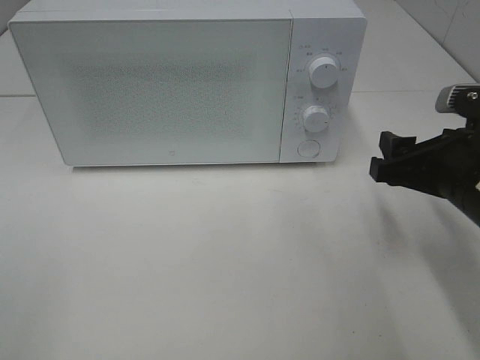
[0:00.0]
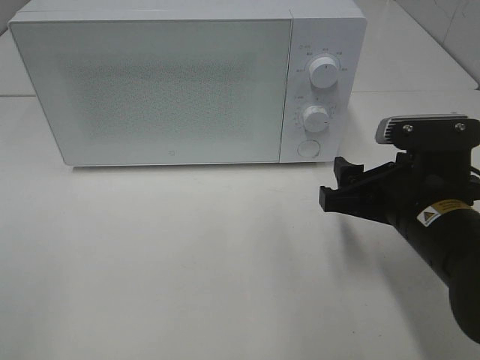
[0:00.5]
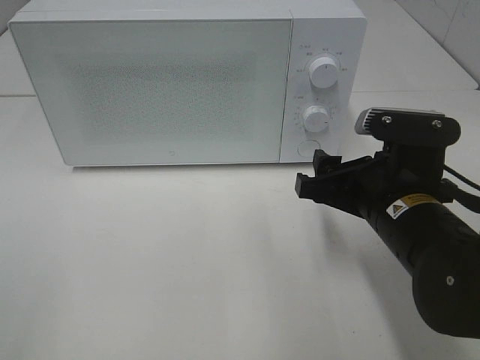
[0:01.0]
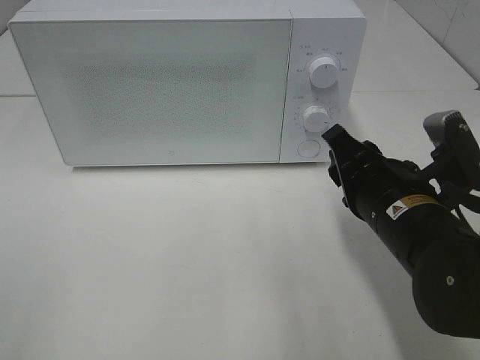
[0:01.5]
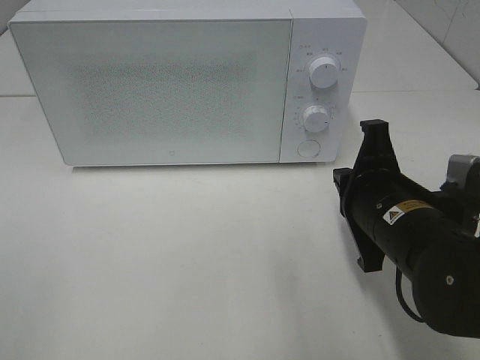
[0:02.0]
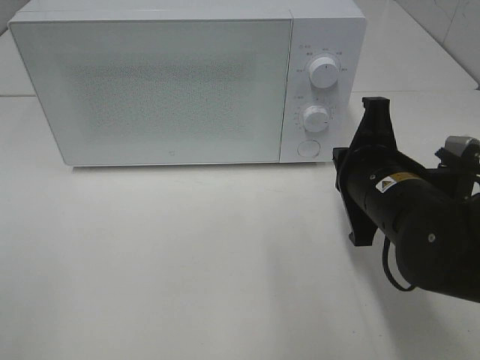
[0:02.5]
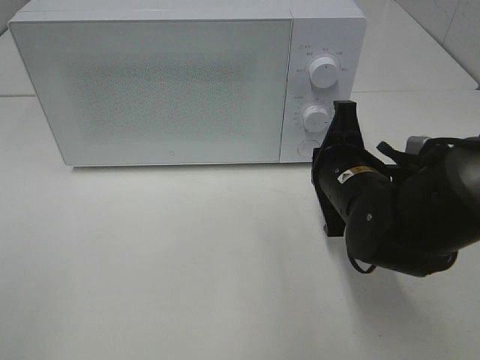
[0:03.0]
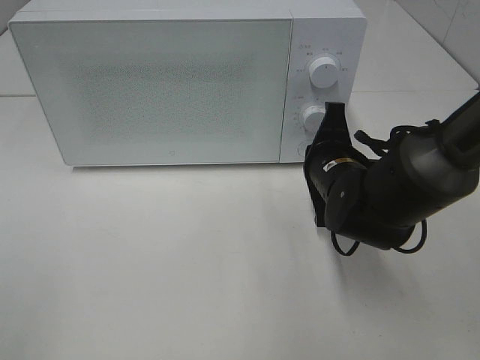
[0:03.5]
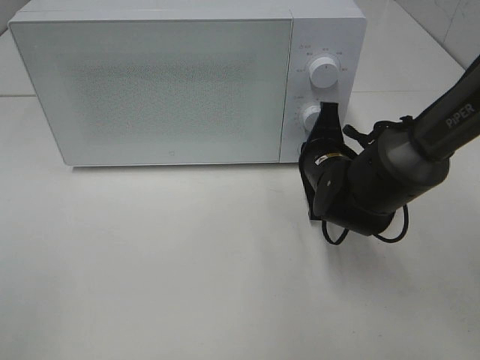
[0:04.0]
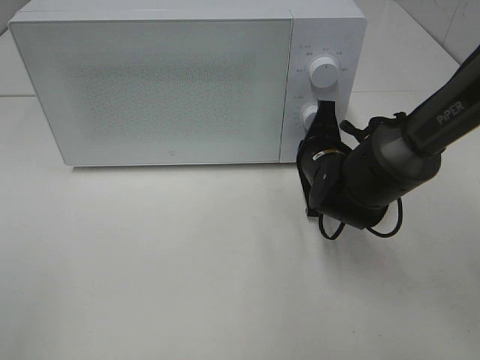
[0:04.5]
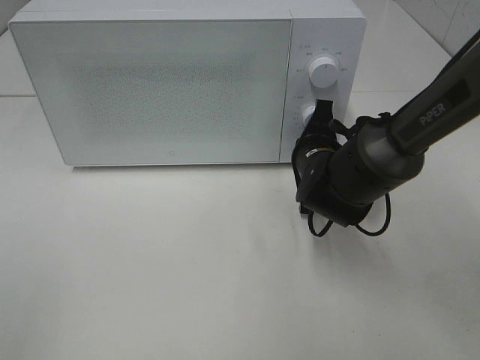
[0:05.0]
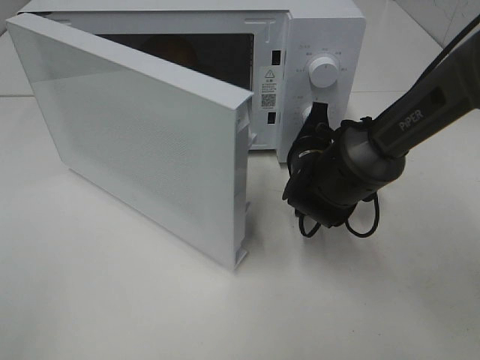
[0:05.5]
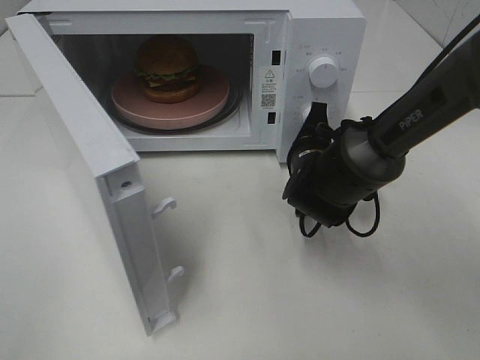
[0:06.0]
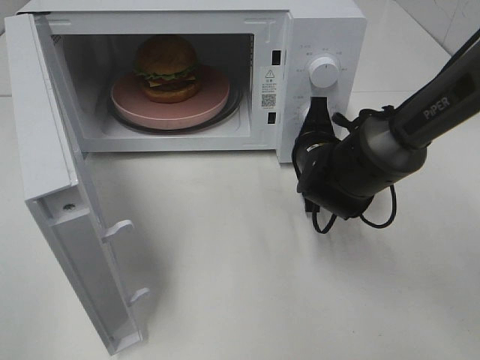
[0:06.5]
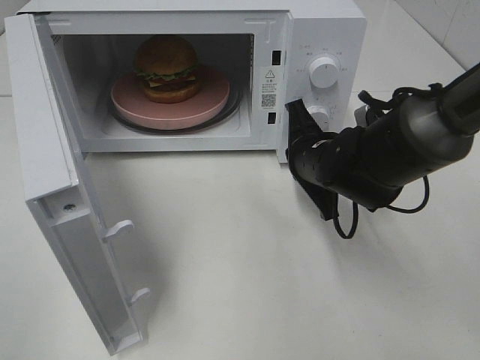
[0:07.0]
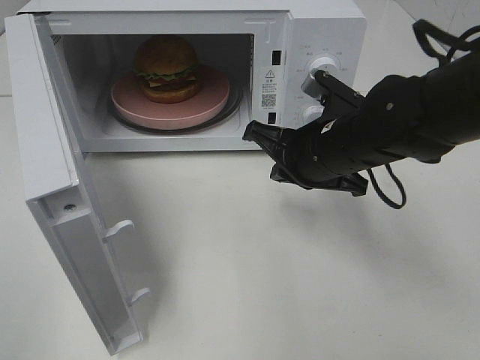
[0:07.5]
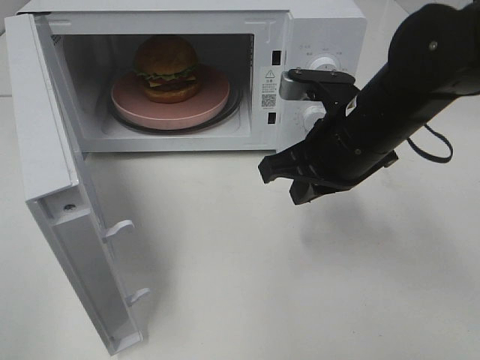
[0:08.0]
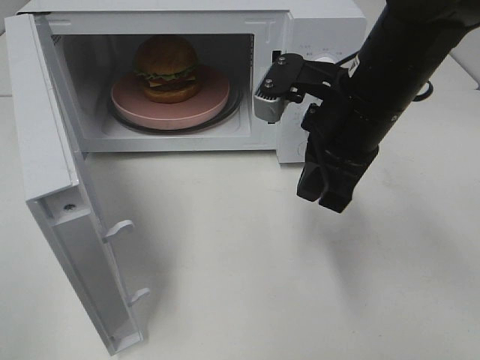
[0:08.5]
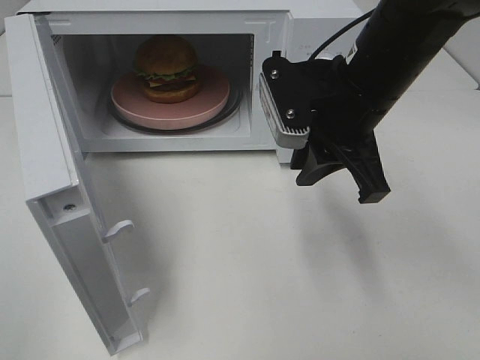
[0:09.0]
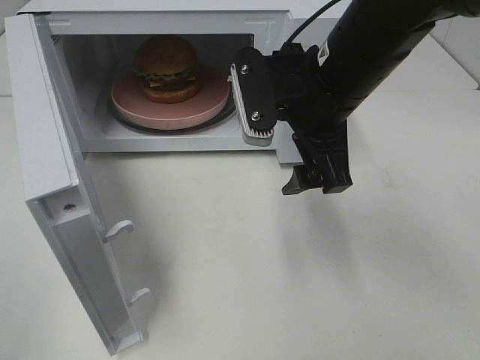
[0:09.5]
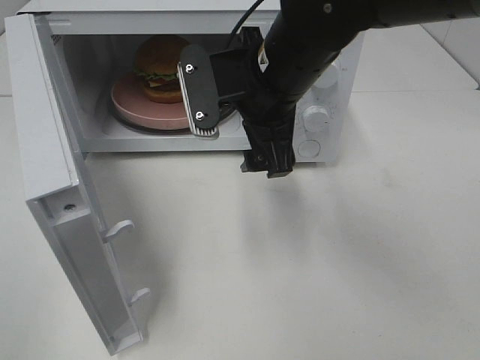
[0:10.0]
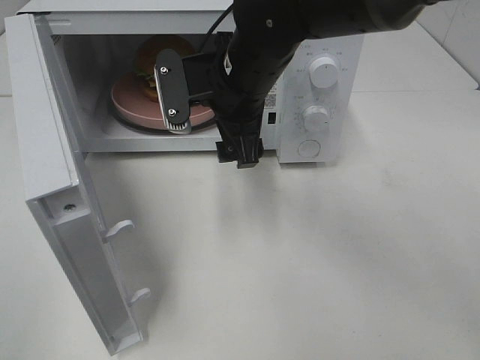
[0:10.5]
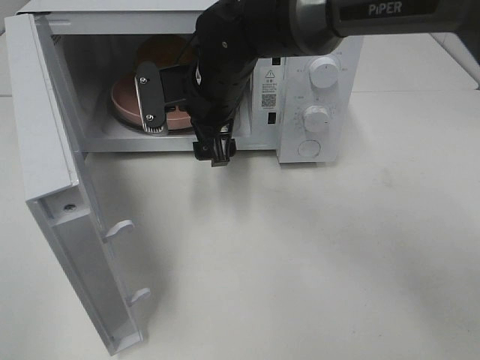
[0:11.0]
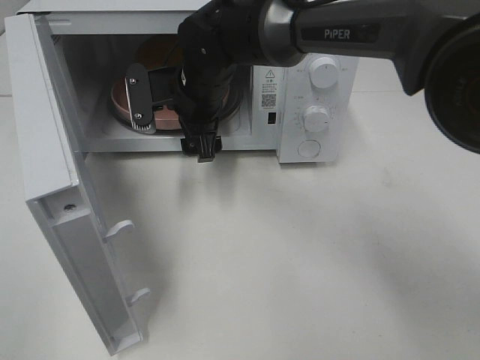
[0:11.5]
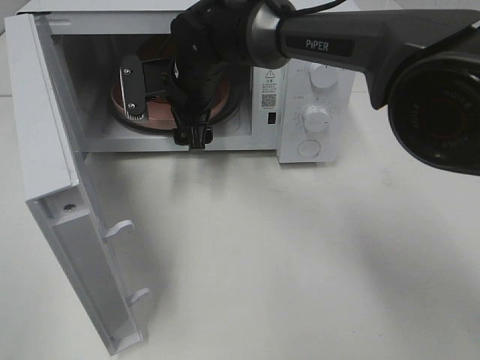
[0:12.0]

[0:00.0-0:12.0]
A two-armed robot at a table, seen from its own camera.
Task of the whole recording: Heat the burger.
Step, 0.0 to 6.5 s: Right hand: press the switch.
0.0 to 2.0 s: The right gripper heads to the left, covering about 10 cm, and closes its fingers.
2.0 to 4.0 s: The right gripper goes about 15 cm forward and downward.
6.0 to 8.0 s: The right gripper shifts roughly 15 cm upward and backward.
8.0 to 10.0 s: The right gripper heads to the left, covering roughly 10 cm, and opens up.
10.0 to 12.0 s: The right gripper heads forward, to the left and downward, covering about 15 cm.

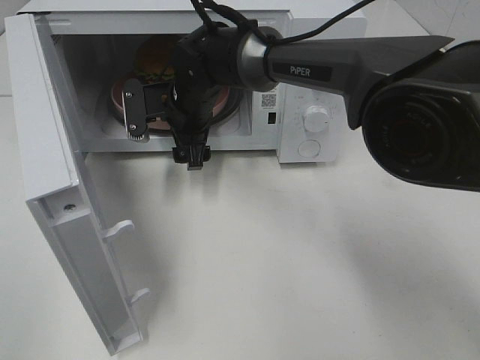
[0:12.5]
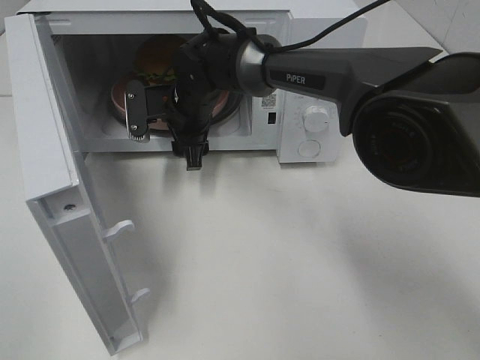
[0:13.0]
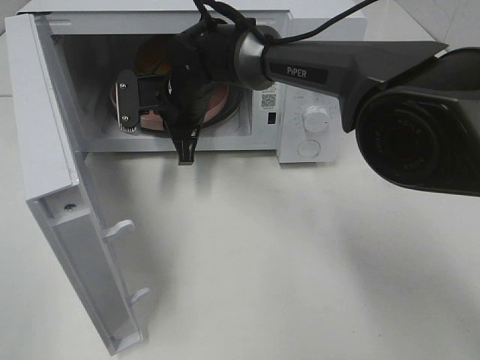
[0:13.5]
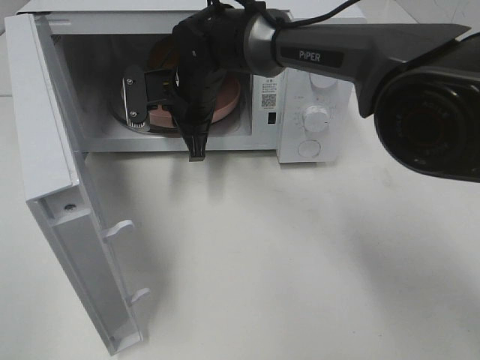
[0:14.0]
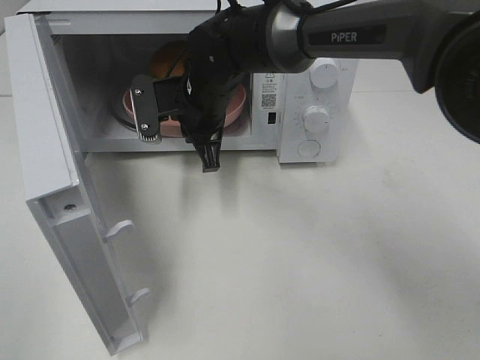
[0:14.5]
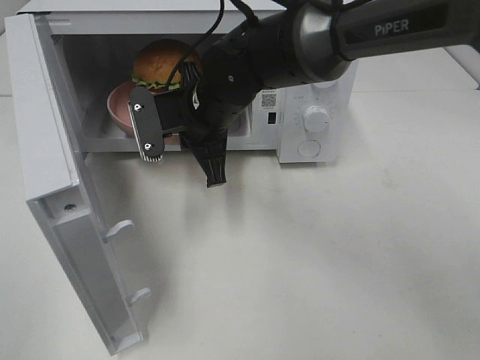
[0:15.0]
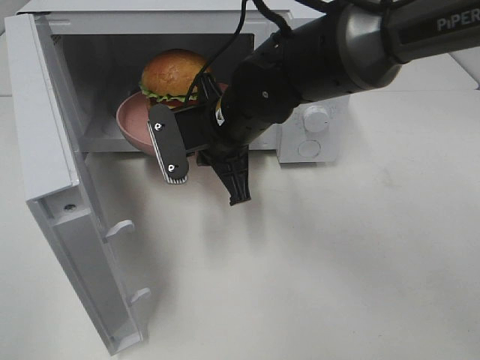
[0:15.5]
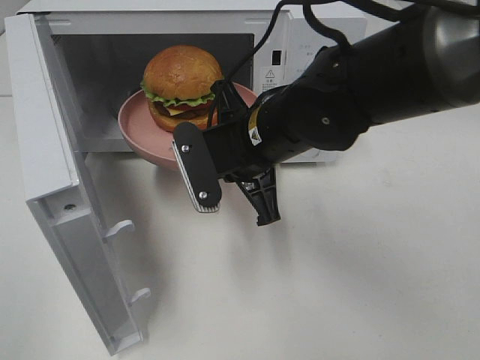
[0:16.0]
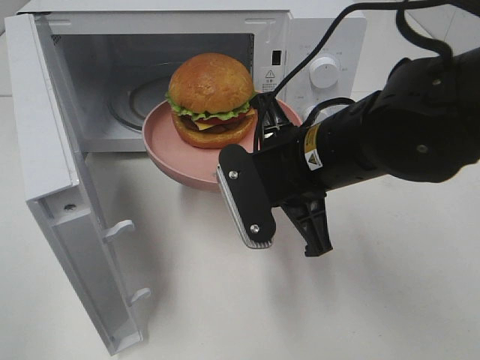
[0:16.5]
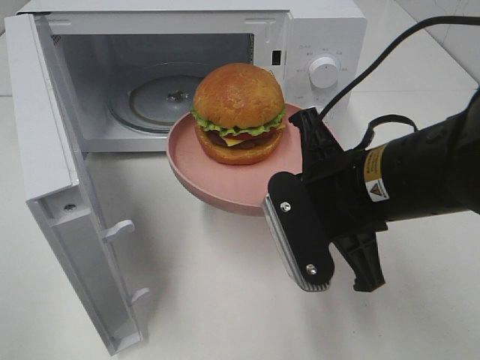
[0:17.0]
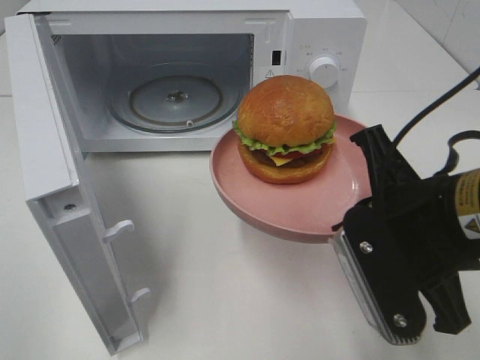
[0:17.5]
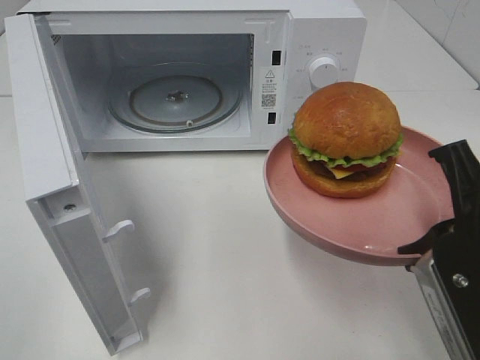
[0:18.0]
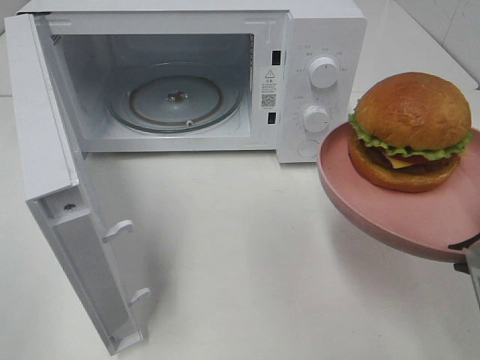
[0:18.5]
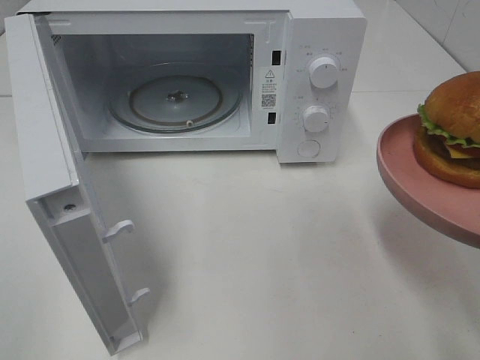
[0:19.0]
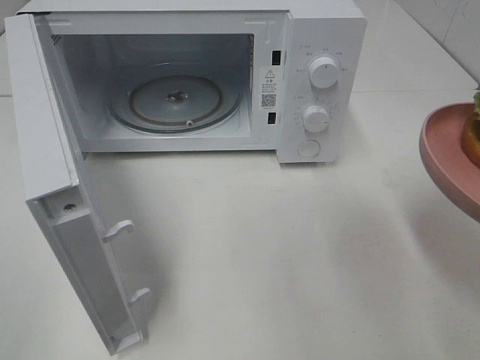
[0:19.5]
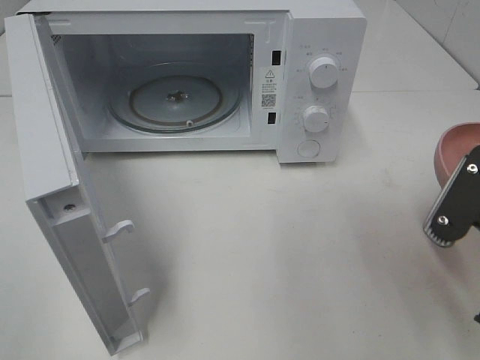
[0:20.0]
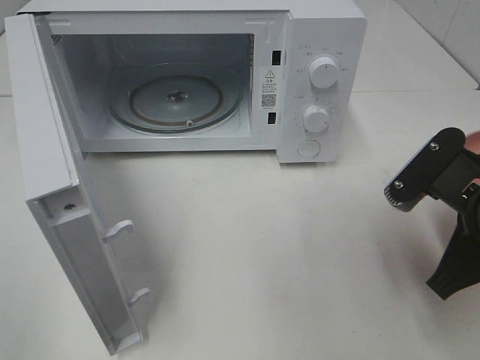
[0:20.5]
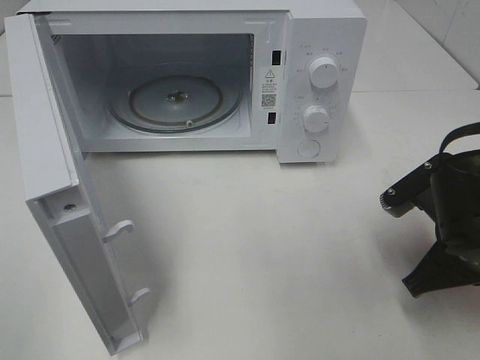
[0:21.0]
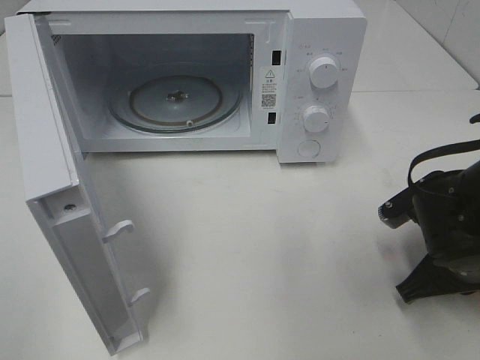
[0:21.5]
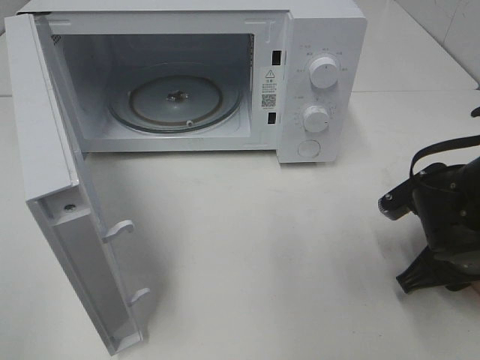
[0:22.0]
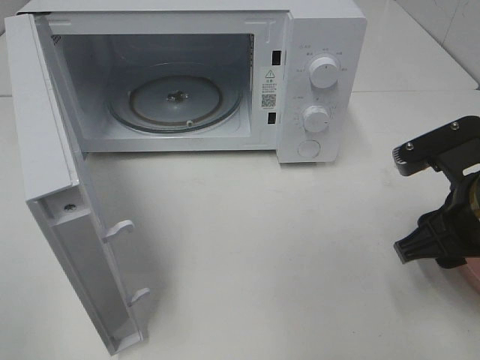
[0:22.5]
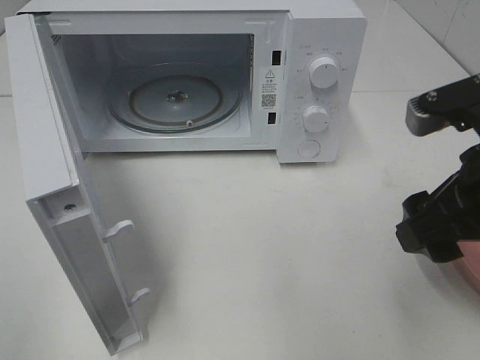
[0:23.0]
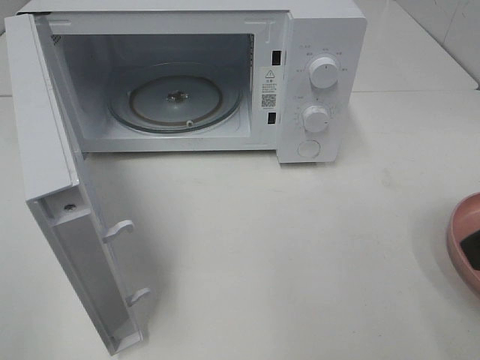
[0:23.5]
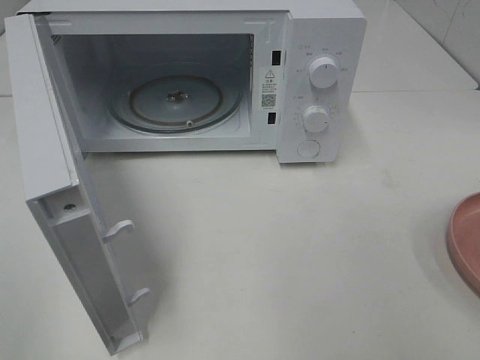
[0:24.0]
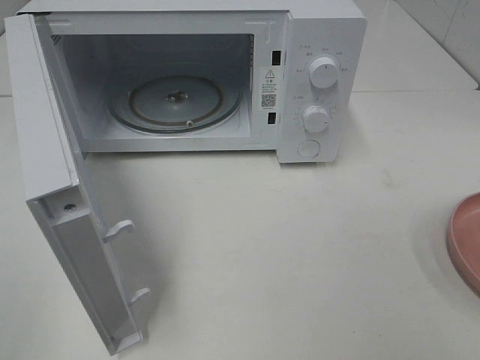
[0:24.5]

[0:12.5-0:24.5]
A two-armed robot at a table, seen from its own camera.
Task of the whole recording: Heat the burger.
Step, 14.0 to 22.0 s: Right hand: place the plate on the table.
12.5 to 14.5 s: The right gripper closes up.
14.5 to 16.5 s: The right gripper goes approximately 20 cm backward and to the right.
16.5 to 18.5 s: The right gripper goes roughly 20 cm to the right and backward.
18.5 to 20.5 s: The right gripper is displaced forward and downward by about 10 cm.
20.5 to 22.5 s: The right gripper moves roughly 10 cm downward and comes back, and opens up.
22.5 to 24.5 s: The right gripper is displaced backward, upward and to the right by about 25 cm.

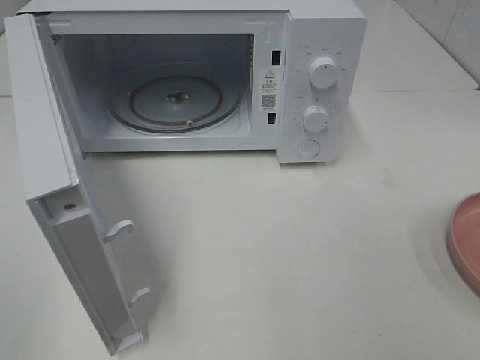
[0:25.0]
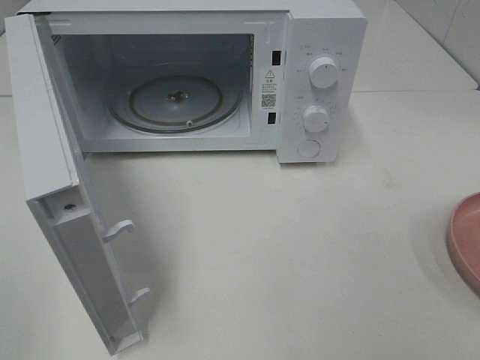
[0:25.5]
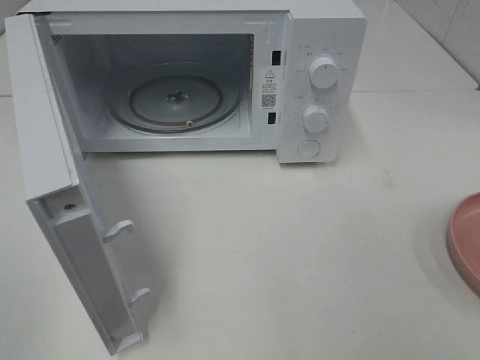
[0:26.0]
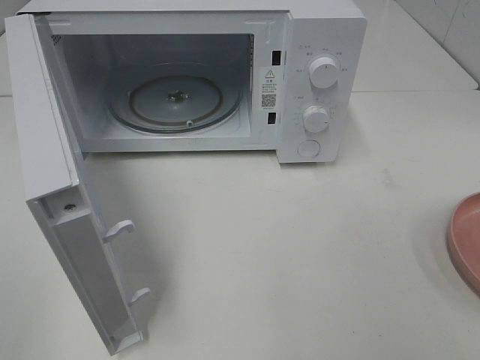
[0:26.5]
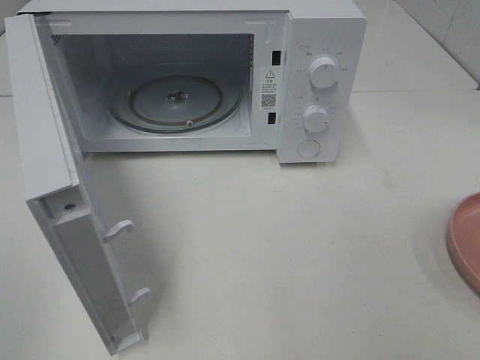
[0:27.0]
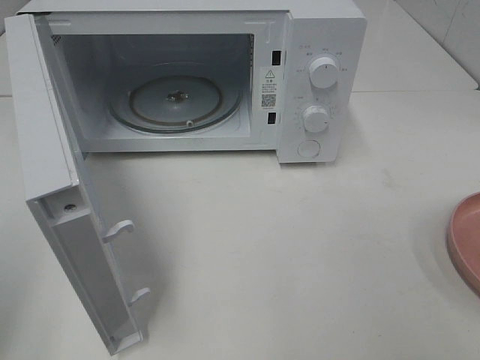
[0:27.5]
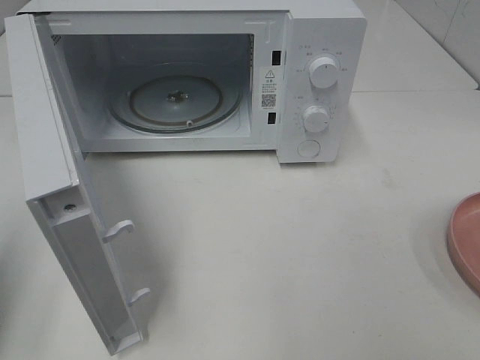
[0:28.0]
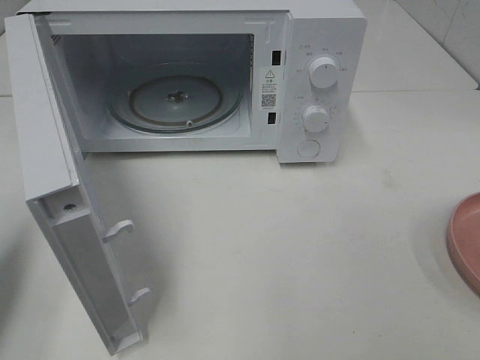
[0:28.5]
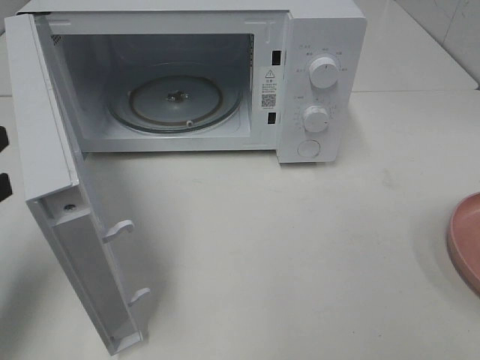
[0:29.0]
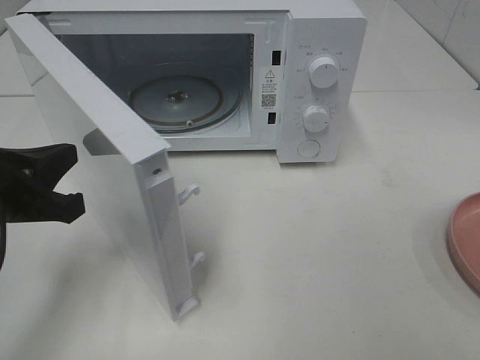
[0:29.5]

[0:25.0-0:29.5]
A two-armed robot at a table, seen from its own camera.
Task of the whole recording: Heat the burger.
27.0 to 29.5 s: The left gripper moves forward, downward and to the right, roughly 25 cm, and closes its fingers.
